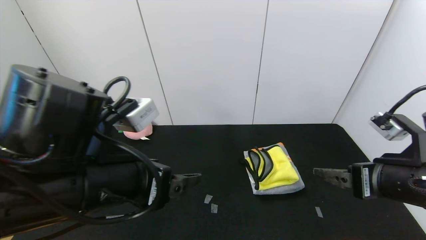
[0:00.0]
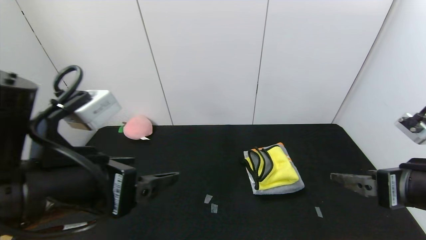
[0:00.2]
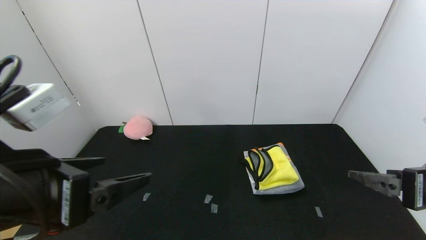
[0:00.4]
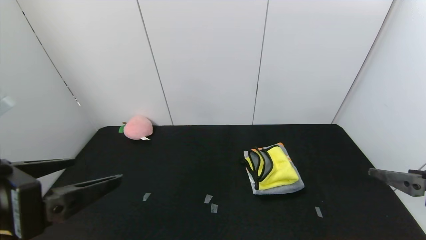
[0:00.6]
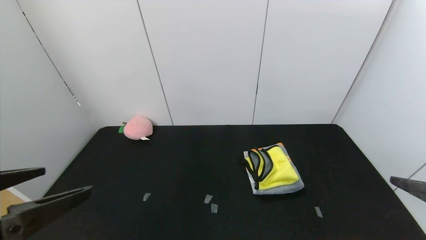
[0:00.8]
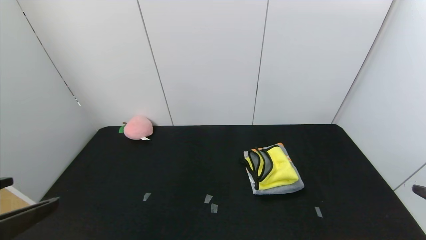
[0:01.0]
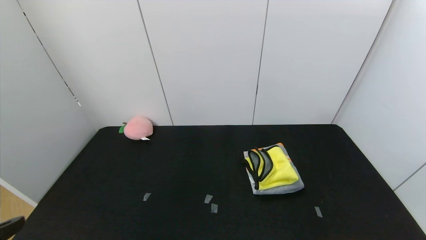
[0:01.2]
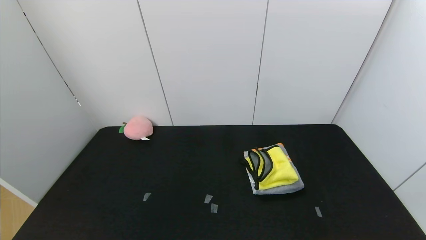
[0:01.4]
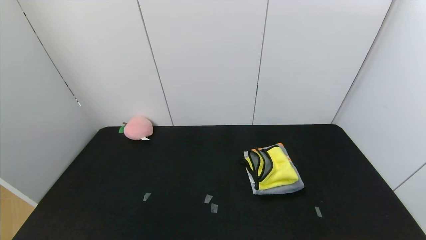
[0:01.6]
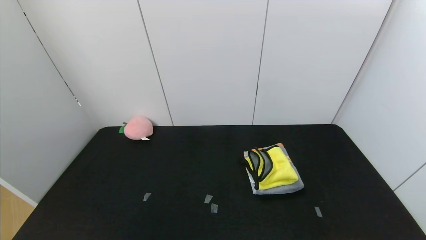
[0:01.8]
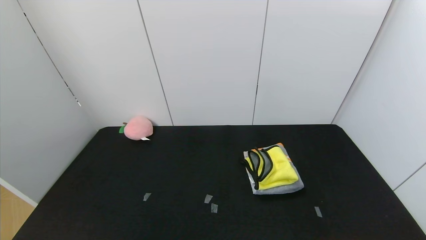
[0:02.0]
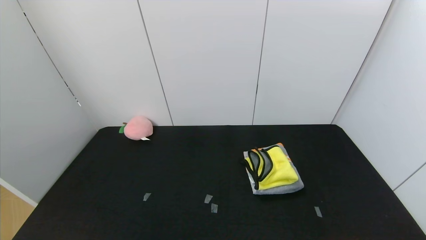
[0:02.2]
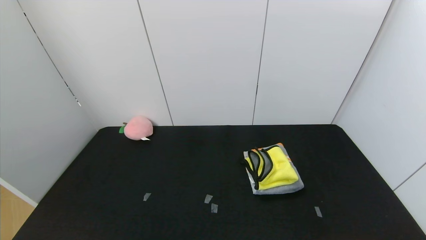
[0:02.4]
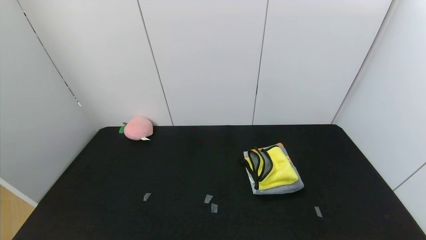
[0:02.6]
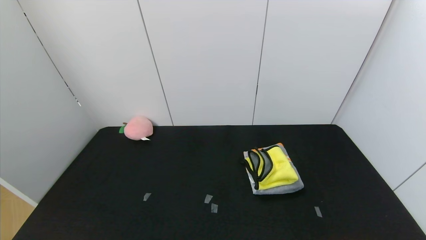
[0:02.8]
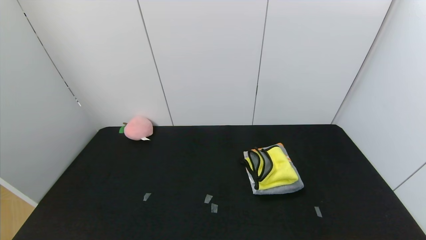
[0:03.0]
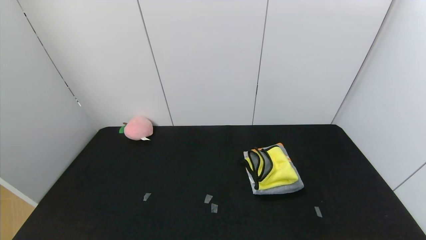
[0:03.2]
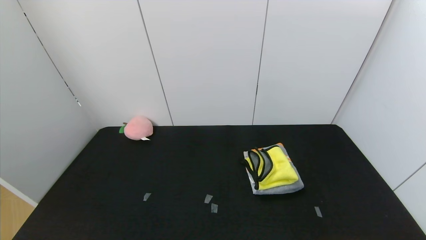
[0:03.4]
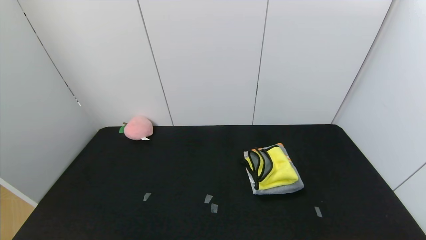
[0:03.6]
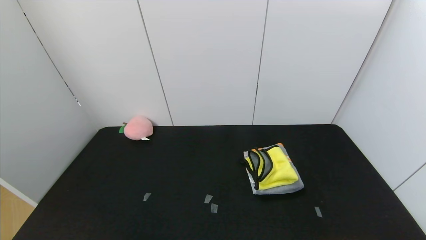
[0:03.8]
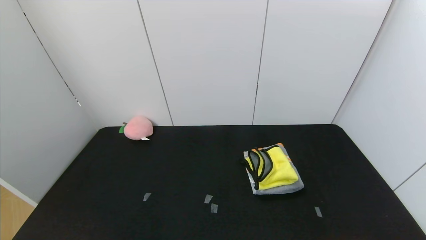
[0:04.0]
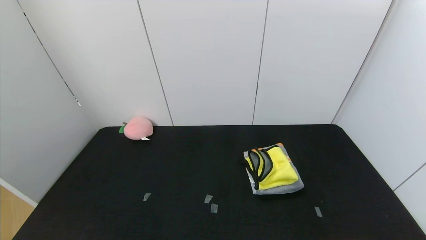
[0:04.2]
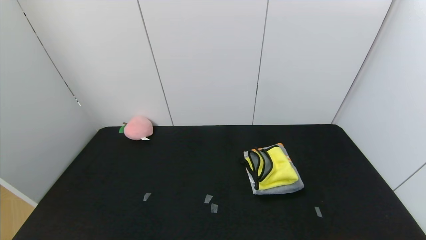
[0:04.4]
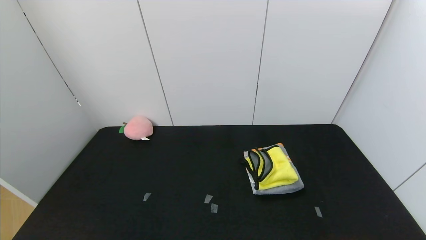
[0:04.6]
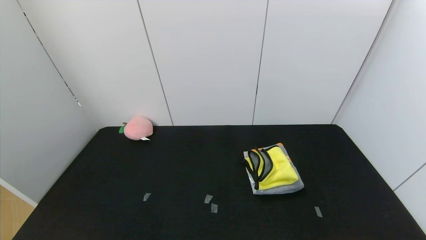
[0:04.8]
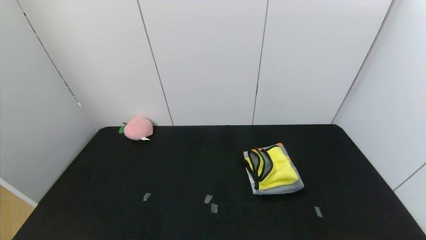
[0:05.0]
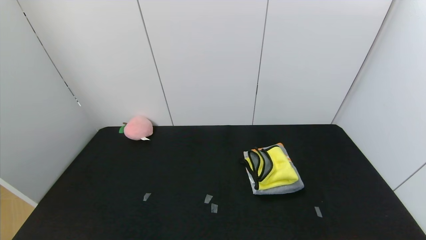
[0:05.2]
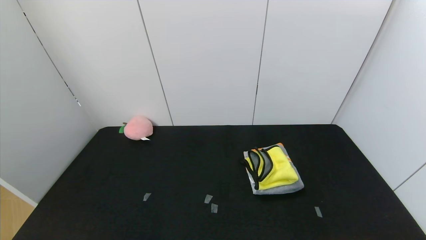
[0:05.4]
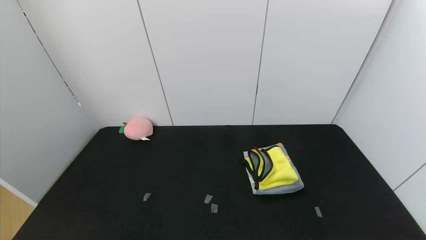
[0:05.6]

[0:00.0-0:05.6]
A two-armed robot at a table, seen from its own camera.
Task of the whole recording: Use the gripper to fold the yellow towel and grey towel in half twice,then put the yellow towel on the grey towel.
0:00.0 to 0:01.4: The right gripper shifts some 20 cm backward and to the right; the left gripper goes roughly 25 cm backward and to the left.
